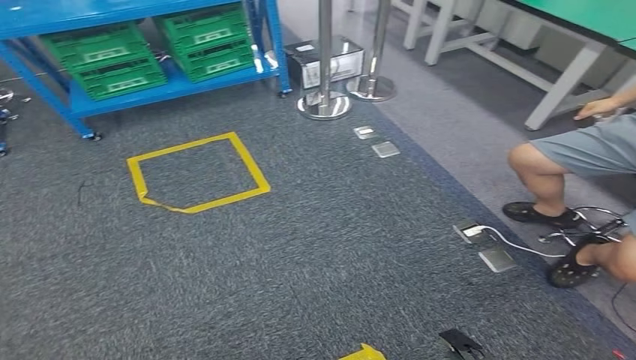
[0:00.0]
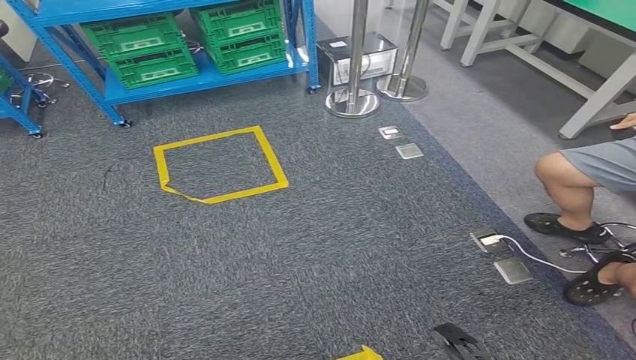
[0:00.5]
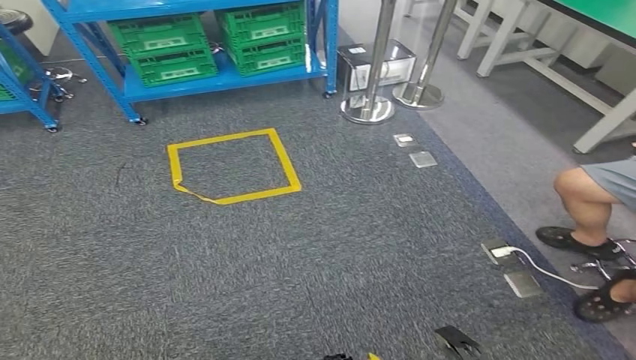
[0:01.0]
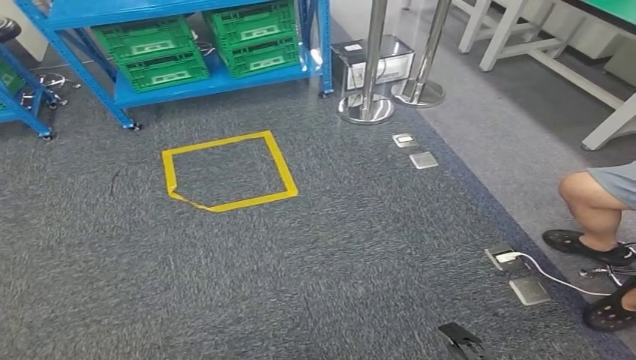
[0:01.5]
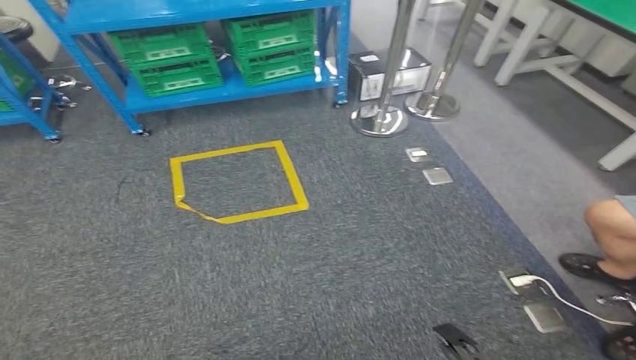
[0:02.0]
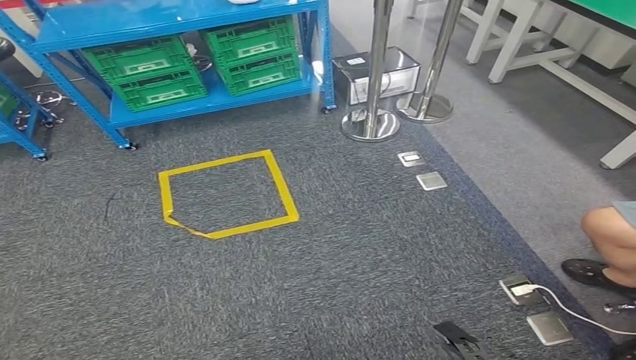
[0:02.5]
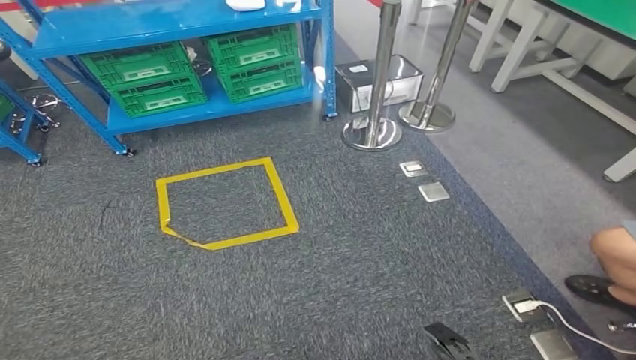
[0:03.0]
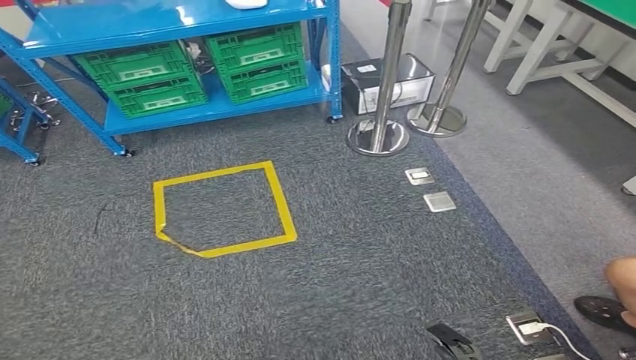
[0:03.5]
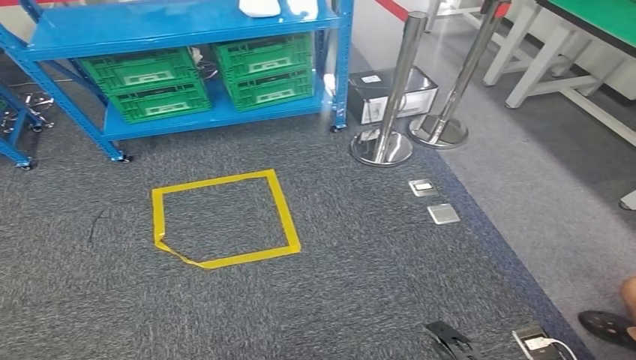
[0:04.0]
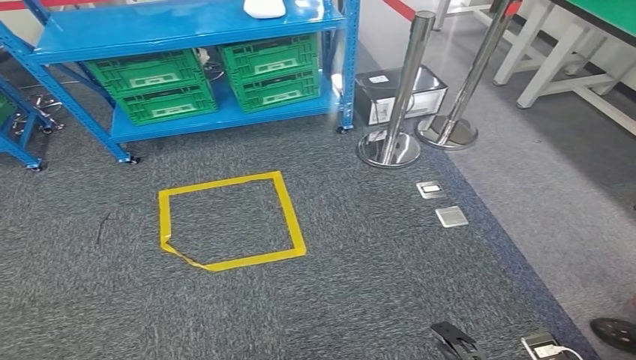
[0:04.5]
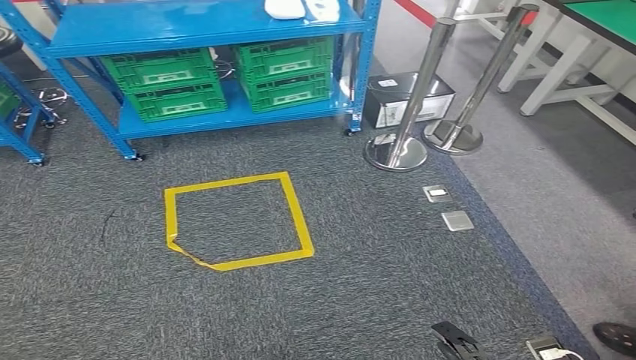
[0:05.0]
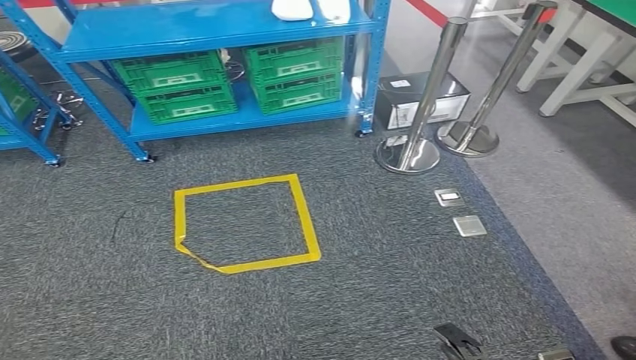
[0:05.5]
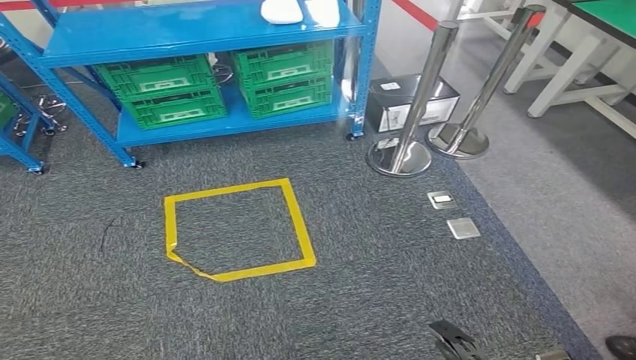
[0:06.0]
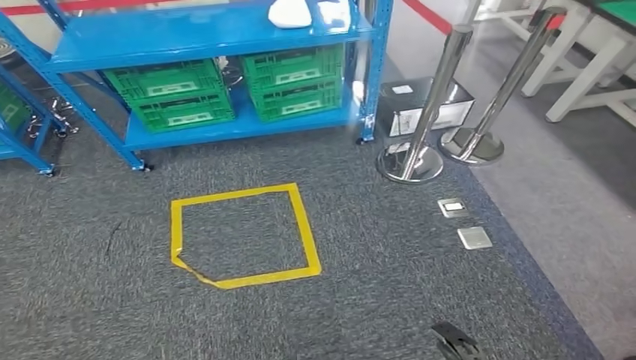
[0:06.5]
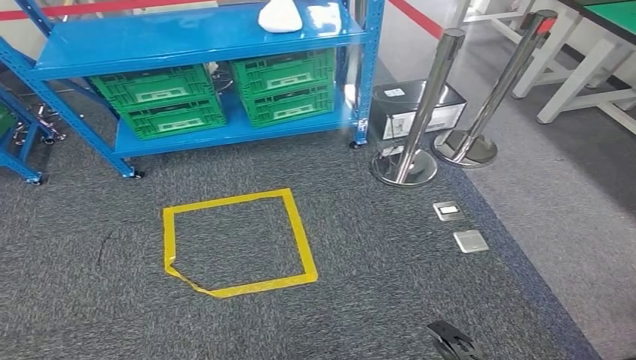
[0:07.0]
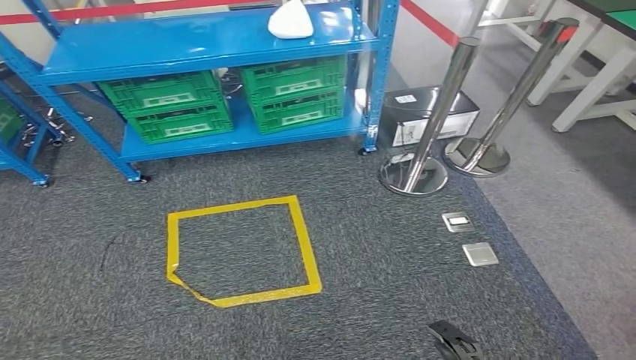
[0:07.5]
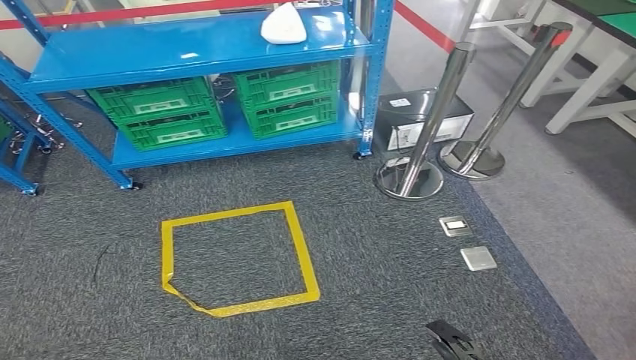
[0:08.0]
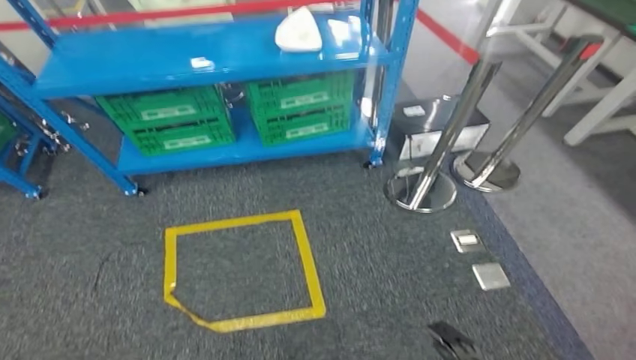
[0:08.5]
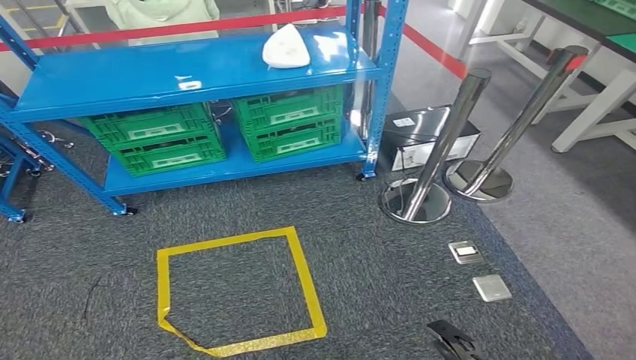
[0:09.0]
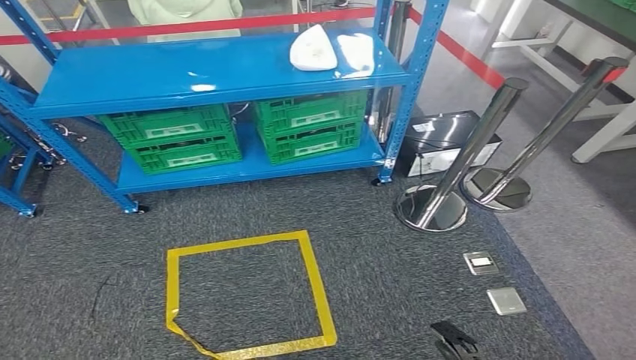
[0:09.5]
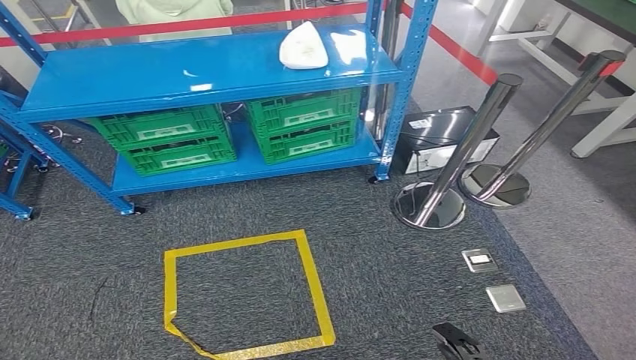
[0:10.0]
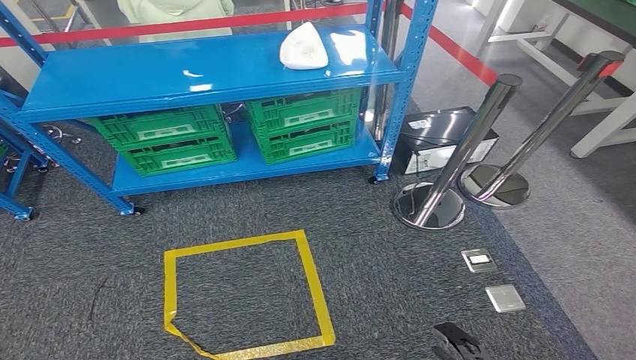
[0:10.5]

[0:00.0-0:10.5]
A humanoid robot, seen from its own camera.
Step, 0:00.0 to 0:10.5: Return to the initial position at the workbench.

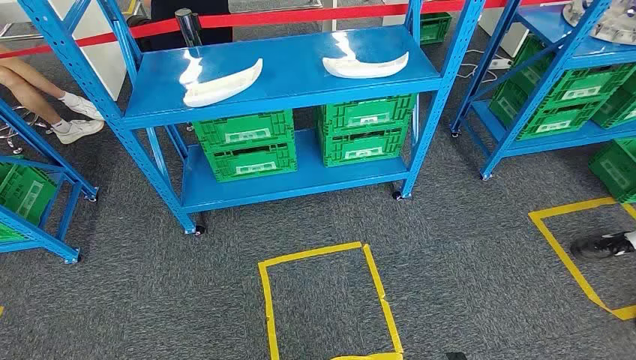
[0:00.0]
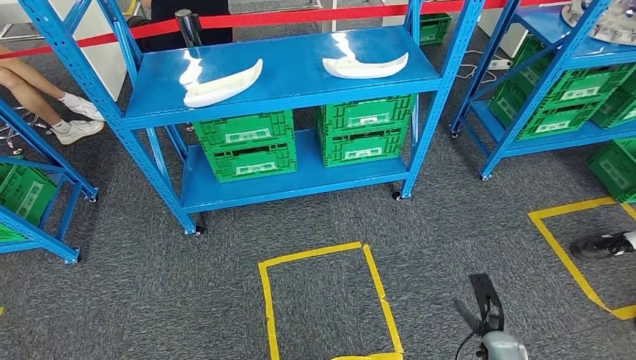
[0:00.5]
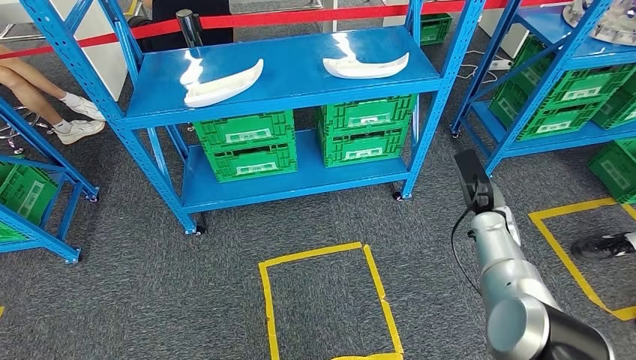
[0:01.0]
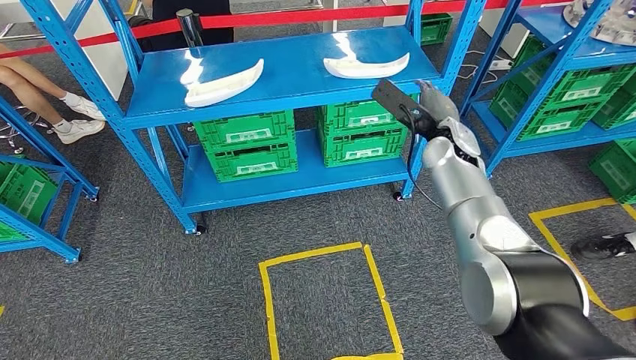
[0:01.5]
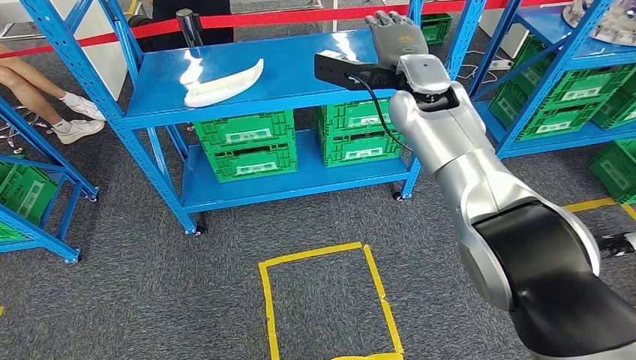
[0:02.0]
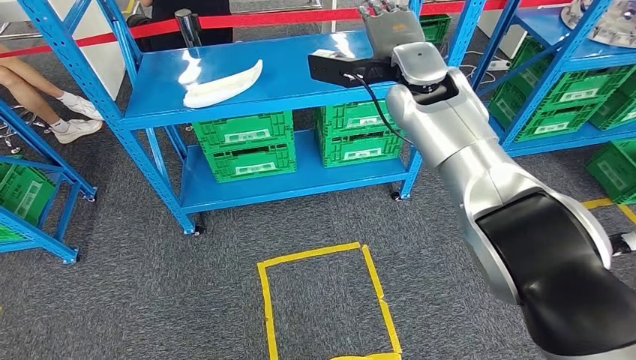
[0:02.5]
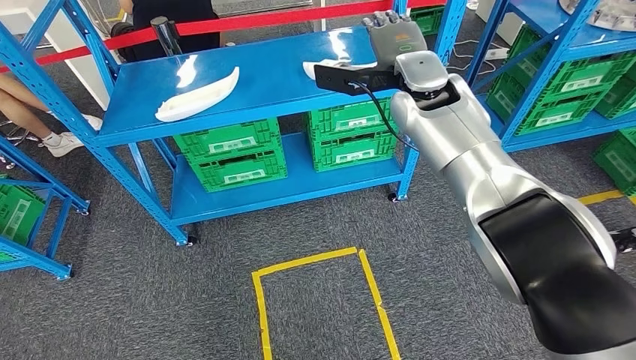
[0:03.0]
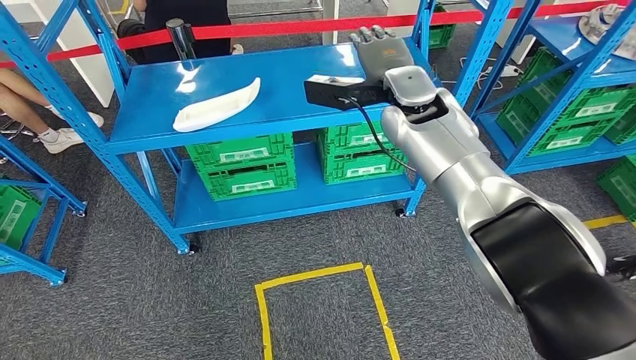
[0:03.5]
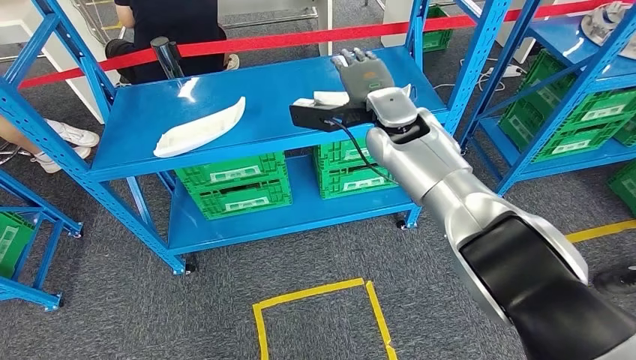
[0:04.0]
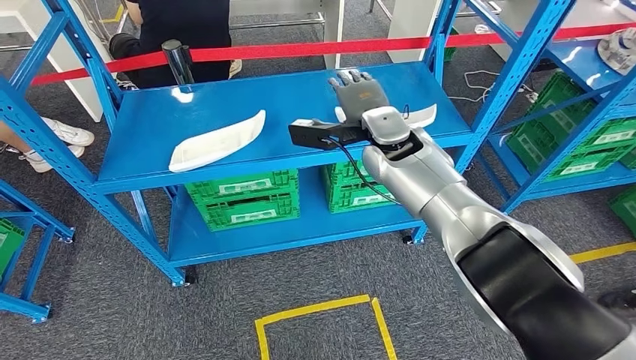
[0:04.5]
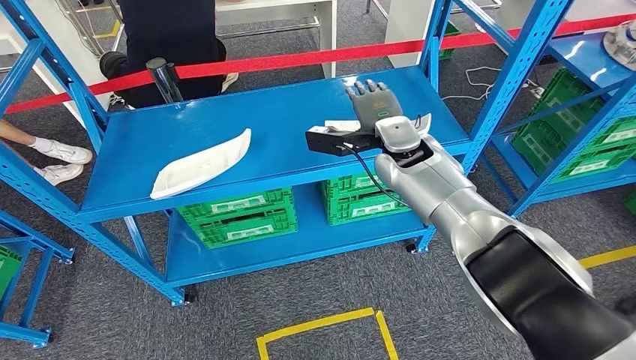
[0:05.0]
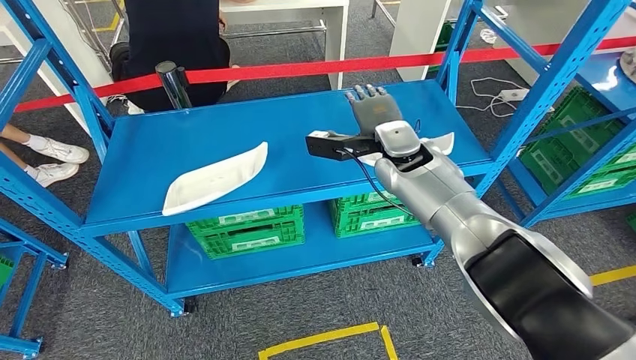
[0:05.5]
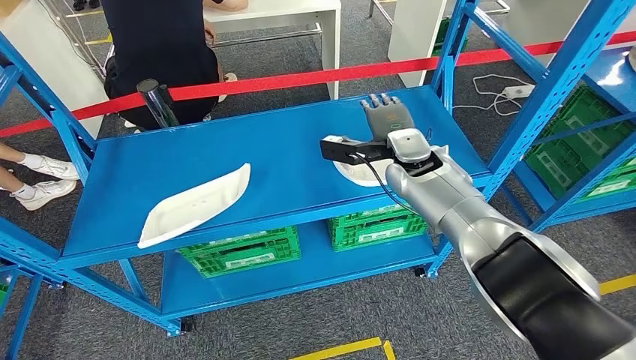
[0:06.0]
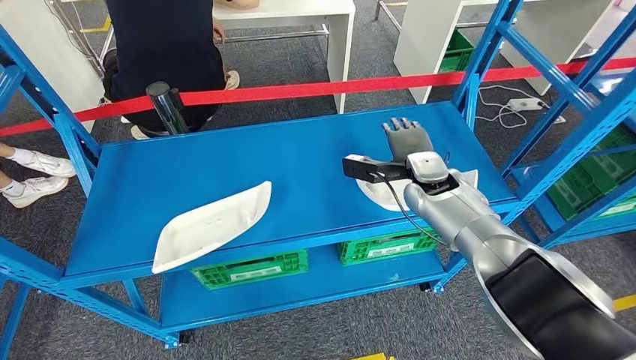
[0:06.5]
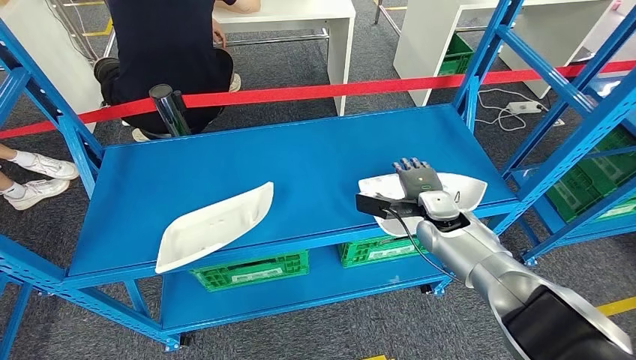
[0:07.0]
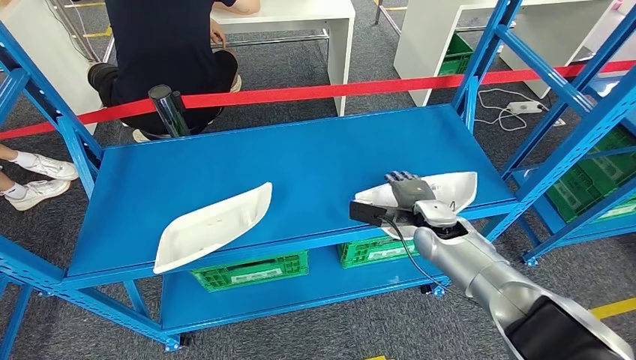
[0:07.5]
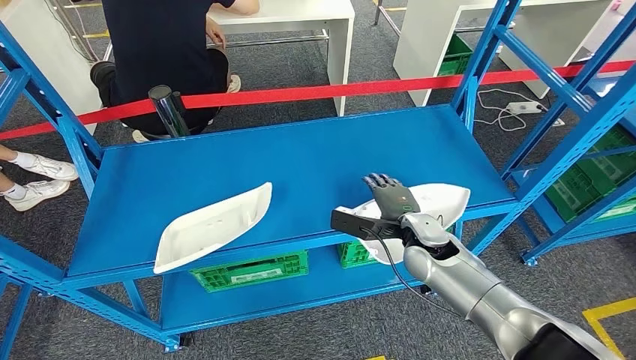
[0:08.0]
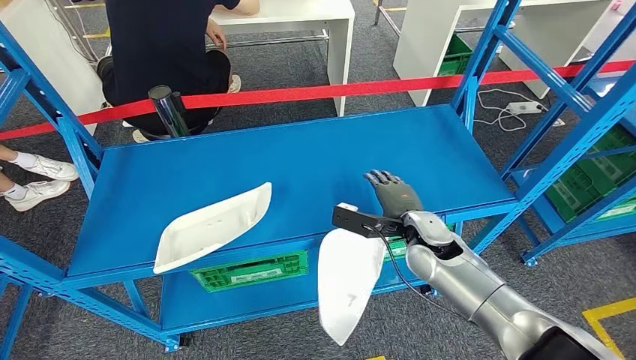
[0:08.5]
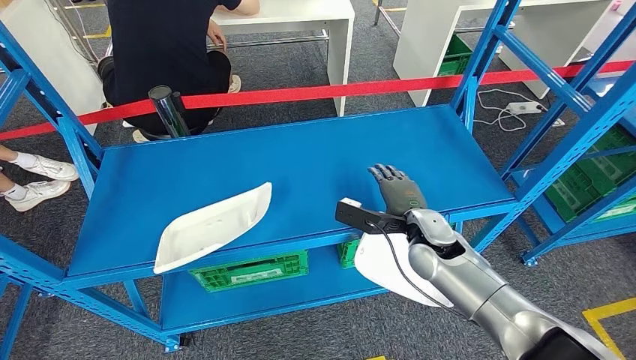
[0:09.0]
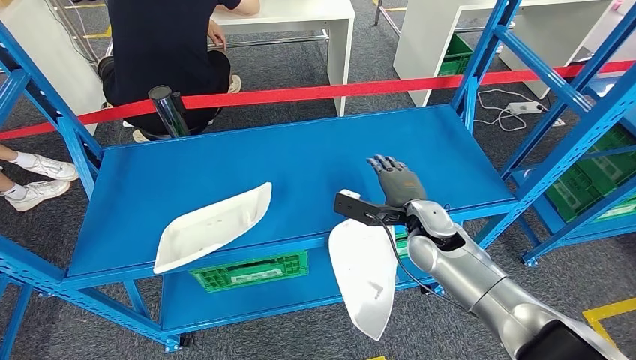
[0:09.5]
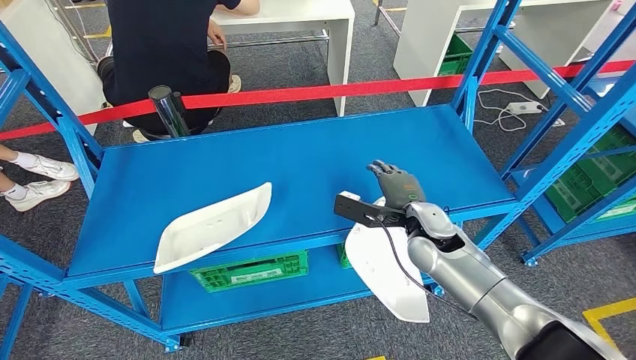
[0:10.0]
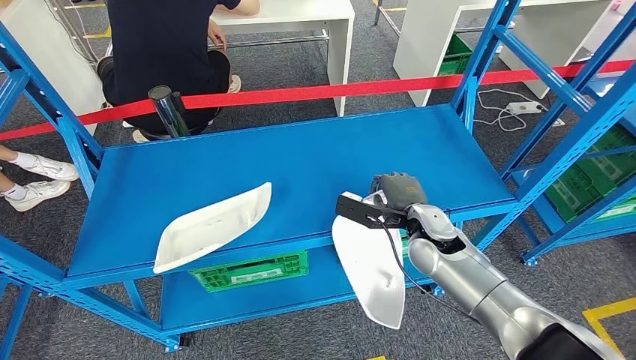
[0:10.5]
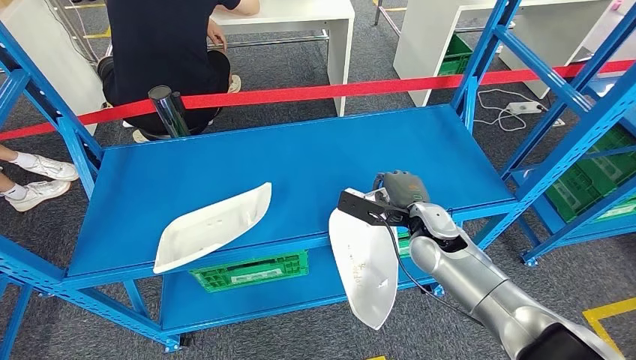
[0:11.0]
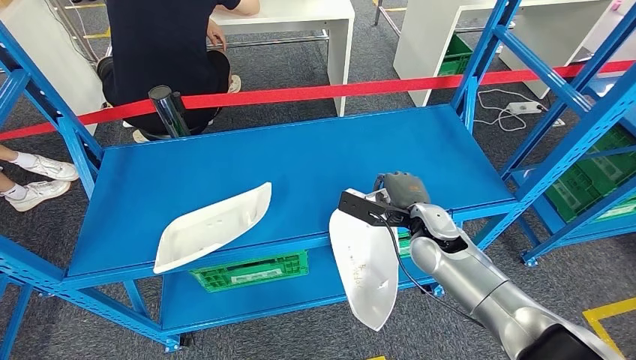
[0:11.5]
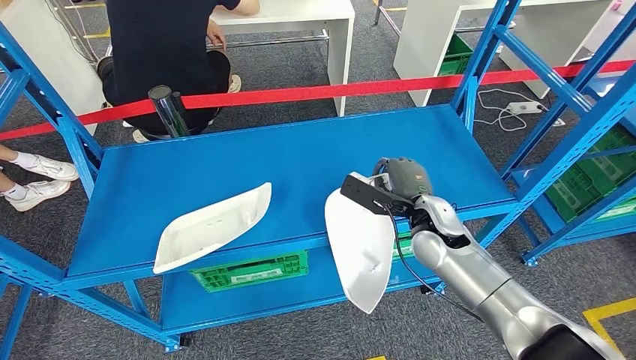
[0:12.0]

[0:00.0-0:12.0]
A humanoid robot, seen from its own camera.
0:08.0 to 0:12.0: The hands stay close to where they were, moving slightly.
